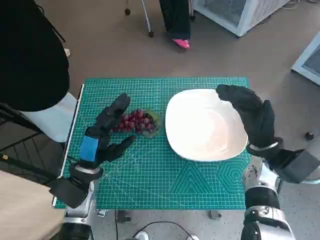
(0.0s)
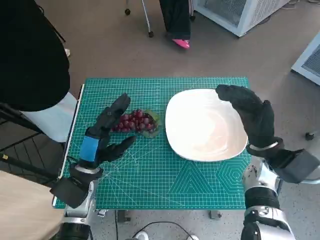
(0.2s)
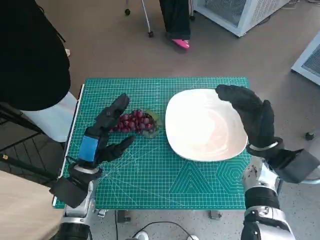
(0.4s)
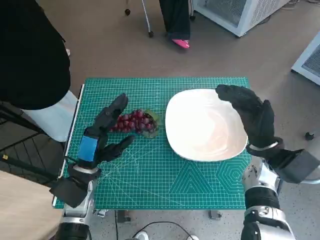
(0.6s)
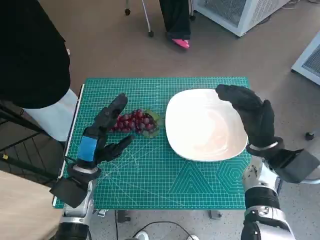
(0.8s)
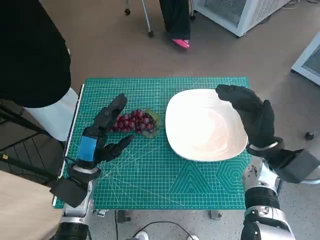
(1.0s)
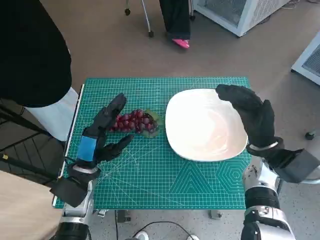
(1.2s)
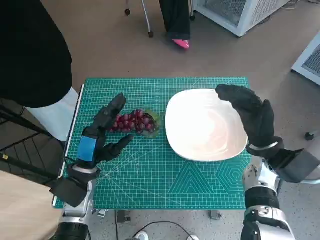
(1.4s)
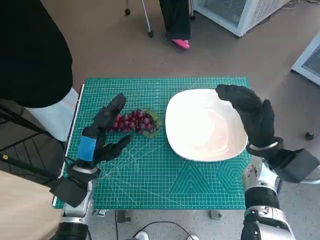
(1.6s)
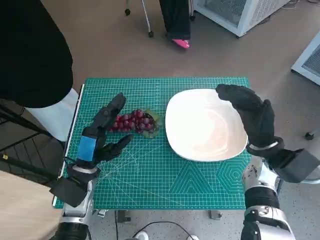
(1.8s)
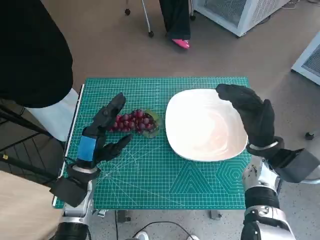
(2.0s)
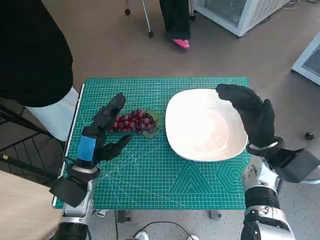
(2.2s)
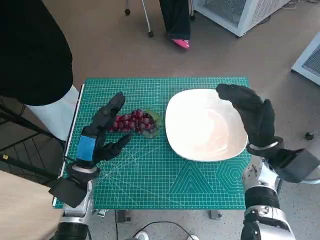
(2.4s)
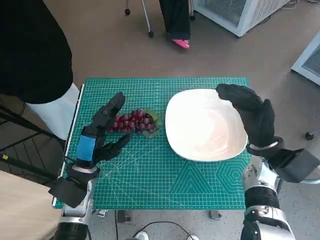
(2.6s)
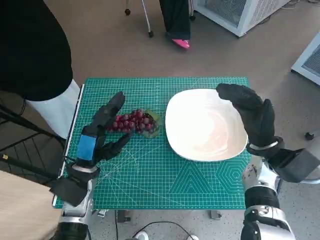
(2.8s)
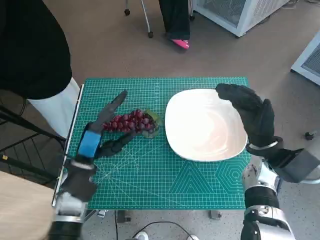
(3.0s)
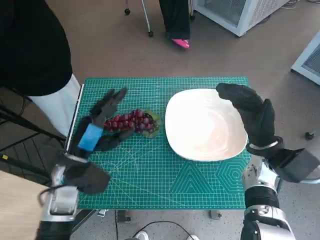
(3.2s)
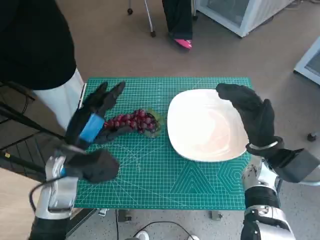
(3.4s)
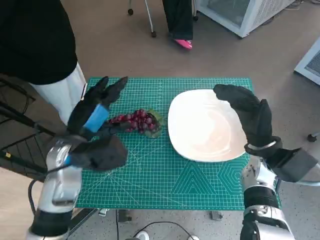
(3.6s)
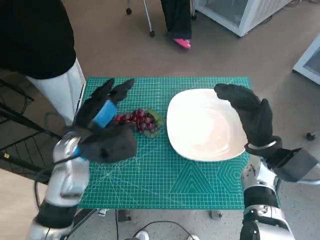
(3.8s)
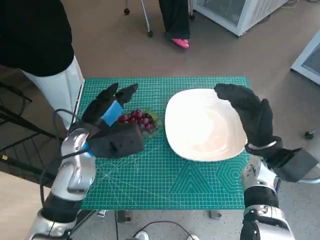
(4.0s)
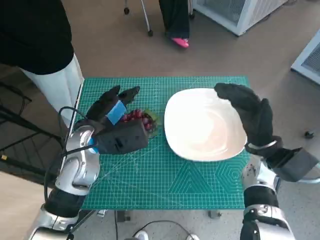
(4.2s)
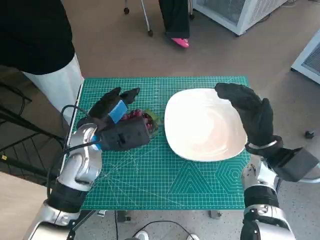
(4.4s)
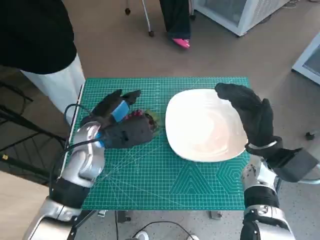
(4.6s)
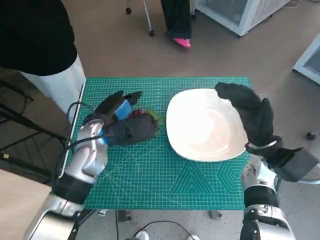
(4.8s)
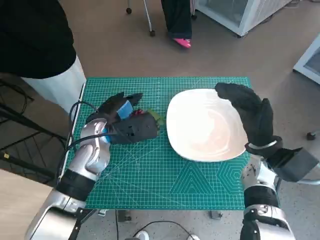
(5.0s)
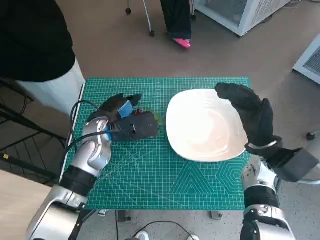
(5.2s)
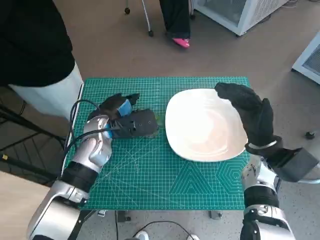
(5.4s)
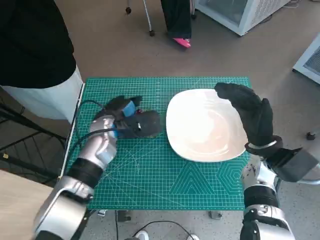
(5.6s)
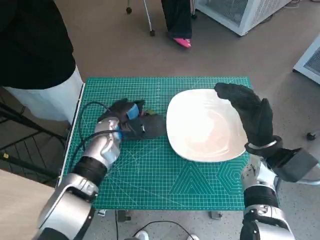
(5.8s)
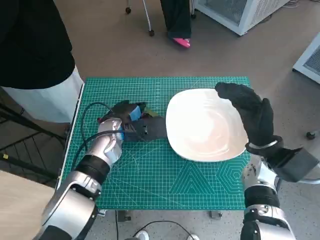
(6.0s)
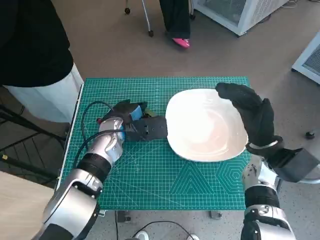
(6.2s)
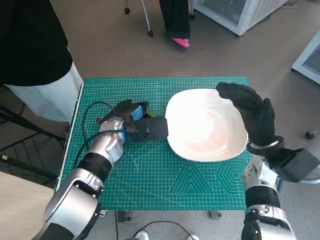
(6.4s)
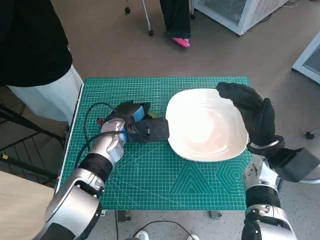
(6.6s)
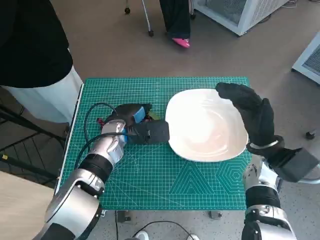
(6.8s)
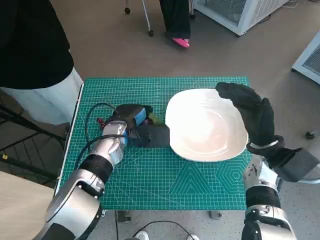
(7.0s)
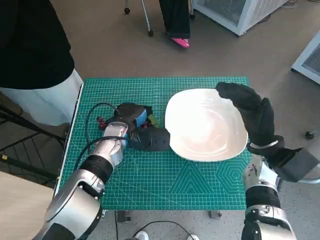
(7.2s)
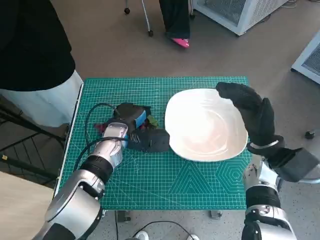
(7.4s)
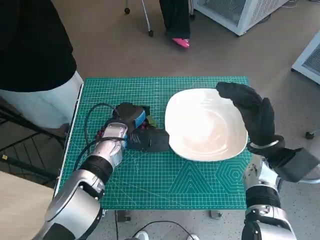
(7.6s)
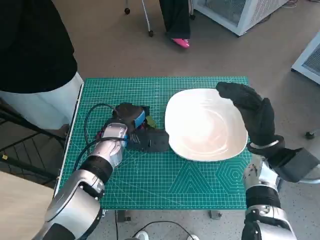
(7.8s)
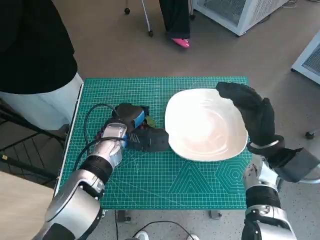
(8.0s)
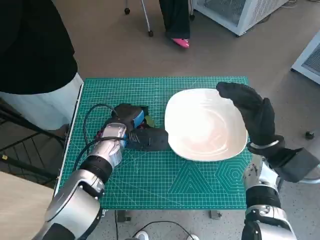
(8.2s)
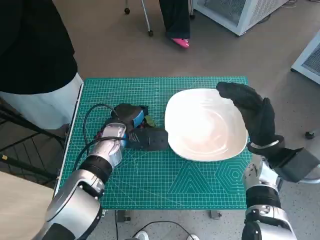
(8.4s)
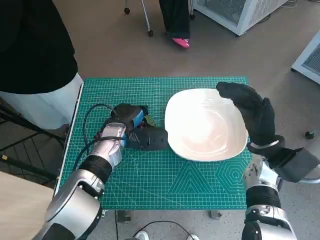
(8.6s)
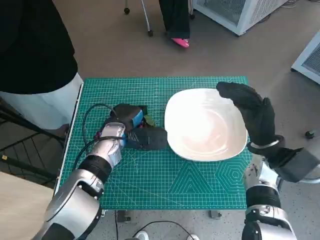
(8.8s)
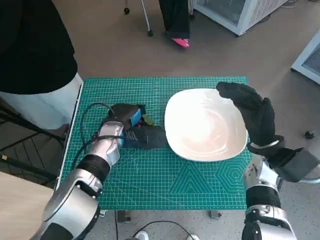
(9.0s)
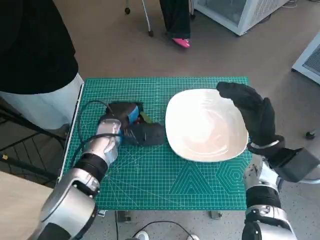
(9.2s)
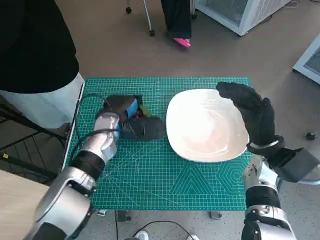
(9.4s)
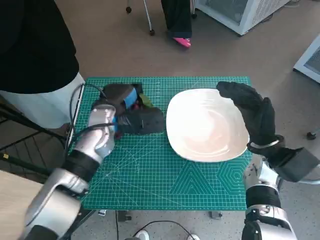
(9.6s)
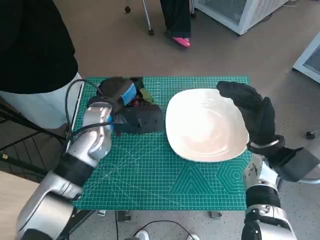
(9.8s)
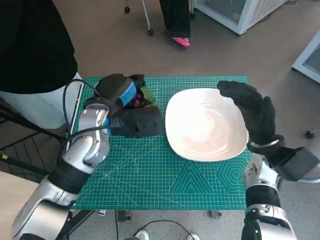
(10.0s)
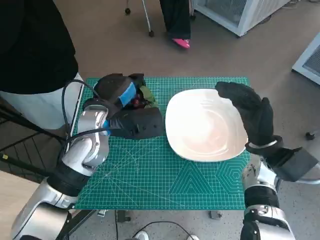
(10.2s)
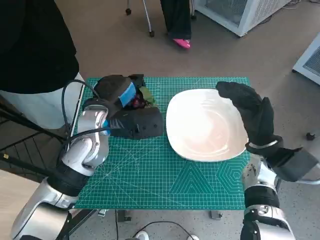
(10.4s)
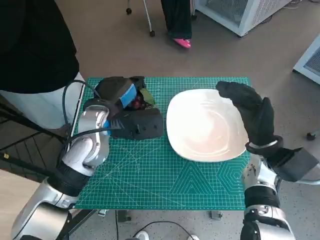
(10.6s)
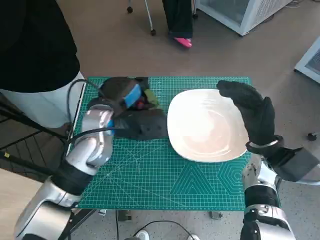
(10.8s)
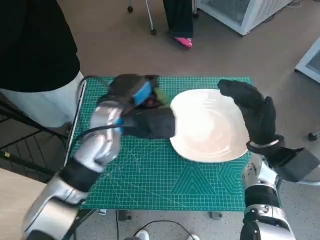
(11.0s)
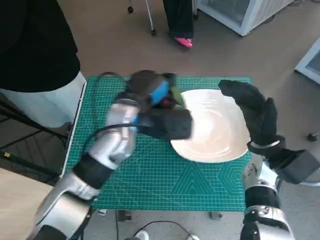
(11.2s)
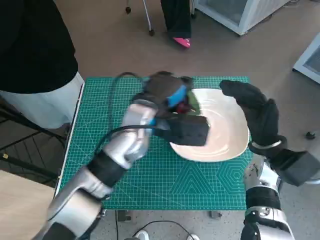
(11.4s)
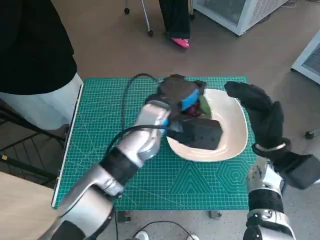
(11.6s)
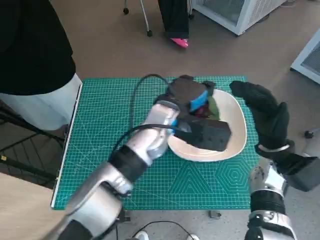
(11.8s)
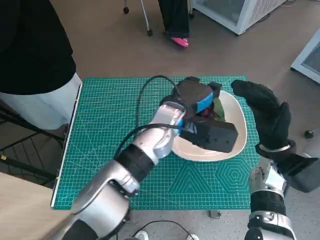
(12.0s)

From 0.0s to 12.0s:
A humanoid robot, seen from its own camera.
Task of the whole recording: Pick up the grapes and put them on the plate.
Step, from 0.0s to 8.8s: Grasp the grapes with left hand.
From 1.6s to 3.0s: There are only small adjustments of the hands.
From 3.0s to 4.4s: The left hand heads upward and forward, covering approximately 10 cm.
From 4.4s to 6.0s: The left hand changes place by roughly 5 cm.
From 6.0s to 7.6s: The hands make only small movements.
From 7.6s to 9.0s: The two hands keep their place.
From 9.0s to 10.4s: The left hand heads upward, covering some 10 cm.
From 10.4s to 12.0s: The left hand travels to the right by approximately 15 cm.

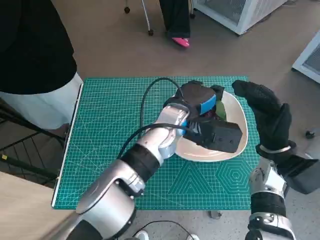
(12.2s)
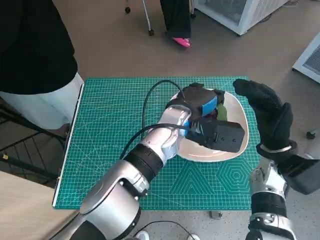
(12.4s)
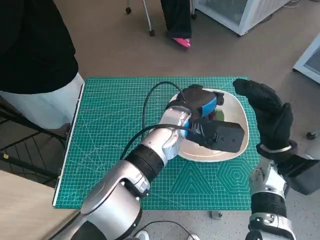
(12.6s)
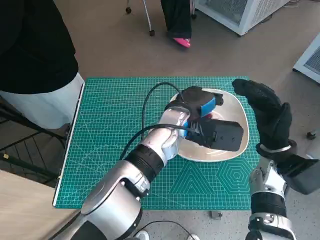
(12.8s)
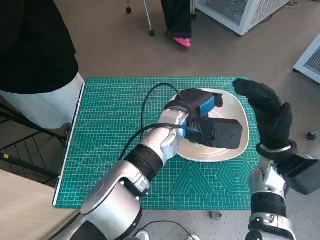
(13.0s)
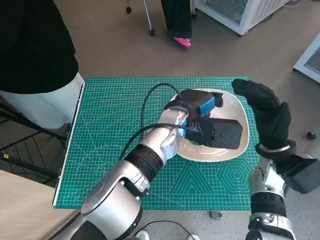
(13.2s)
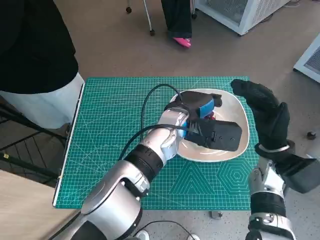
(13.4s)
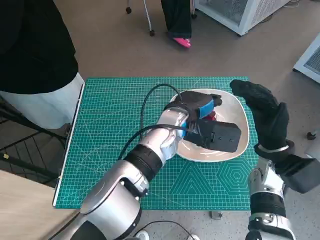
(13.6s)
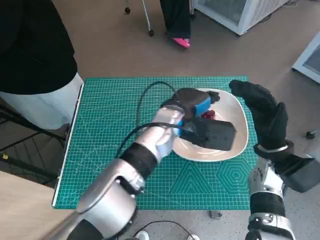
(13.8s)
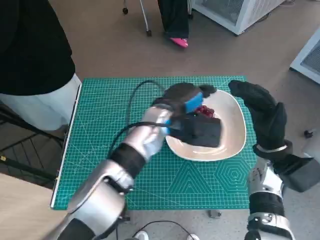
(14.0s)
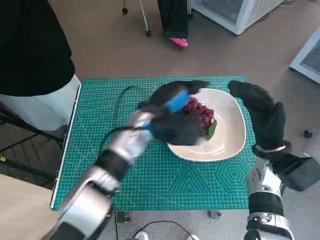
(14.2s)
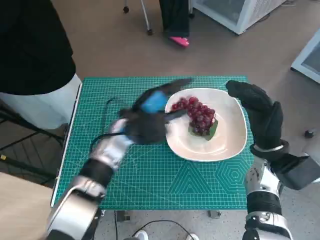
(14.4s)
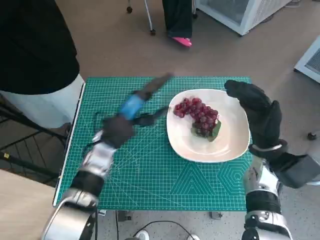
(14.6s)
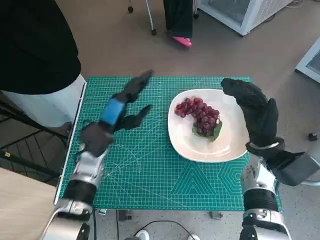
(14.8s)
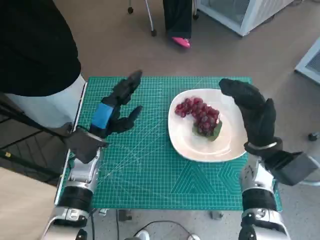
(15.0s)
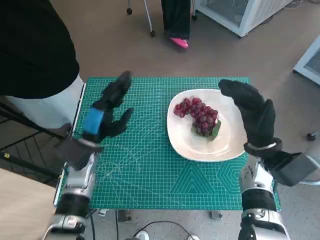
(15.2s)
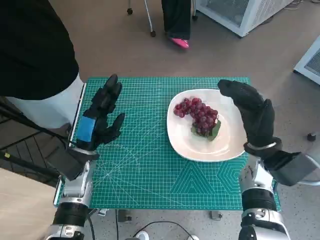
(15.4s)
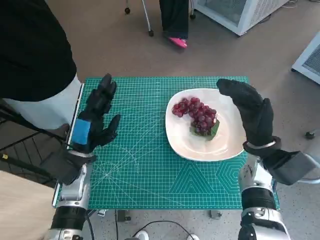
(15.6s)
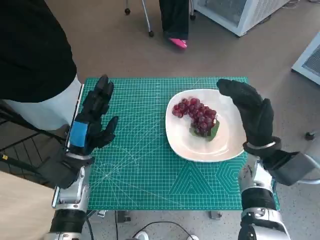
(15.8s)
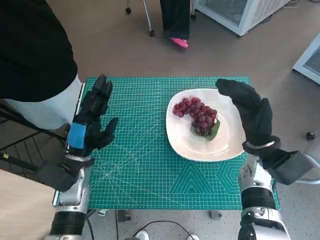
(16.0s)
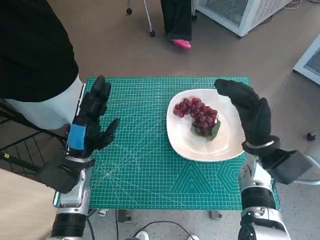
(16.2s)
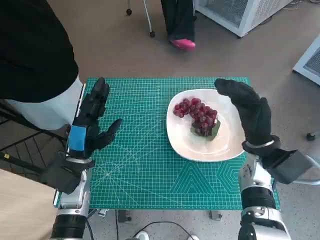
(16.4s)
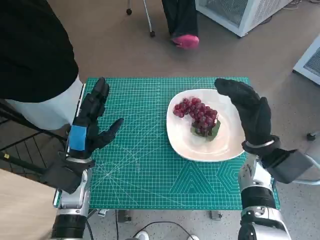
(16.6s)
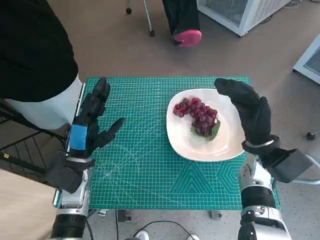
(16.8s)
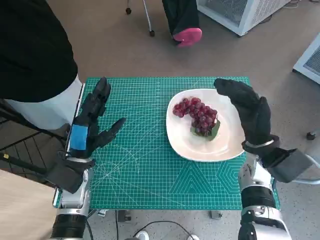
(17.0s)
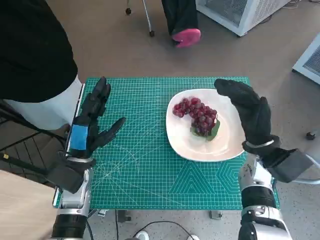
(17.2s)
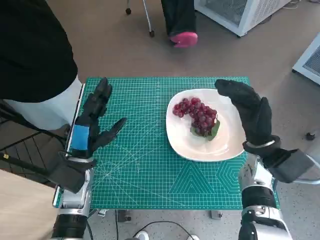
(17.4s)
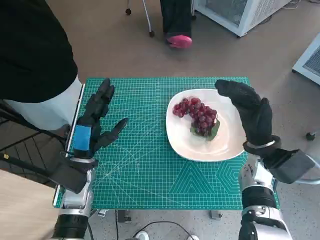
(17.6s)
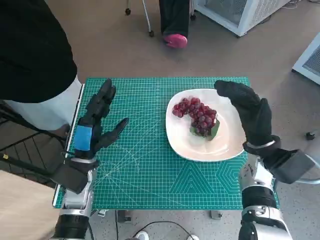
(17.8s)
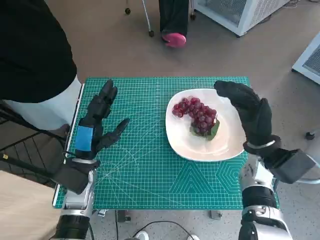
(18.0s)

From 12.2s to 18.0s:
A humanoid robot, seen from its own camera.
Task of the whole recording: Pick up the grapes and put them on the plate.
From 12.2s to 13.6s: The hands move only a little.
From 13.6s to 15.0s: The left hand travels to the left by approximately 20 cm.
From 15.0s to 16.6s: The left hand moves roughly 5 cm.
From 16.6s to 18.0s: Both hands stay about where they are.

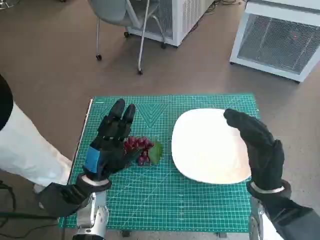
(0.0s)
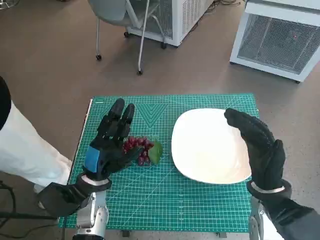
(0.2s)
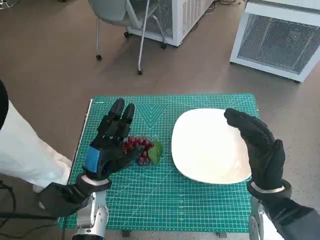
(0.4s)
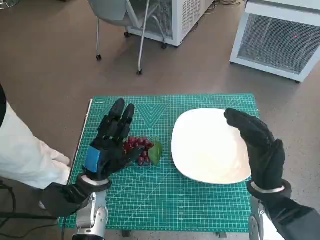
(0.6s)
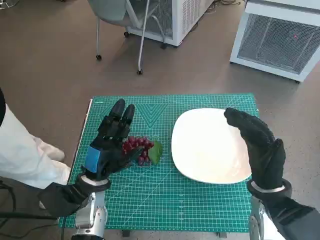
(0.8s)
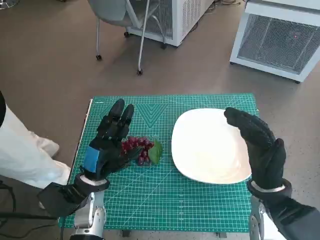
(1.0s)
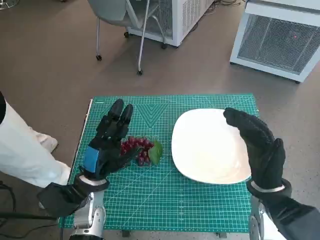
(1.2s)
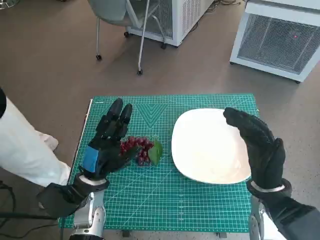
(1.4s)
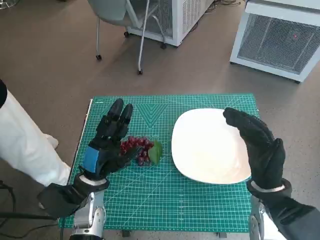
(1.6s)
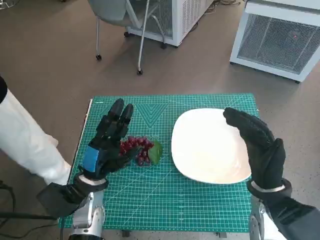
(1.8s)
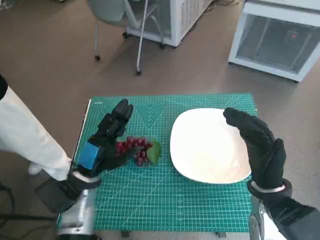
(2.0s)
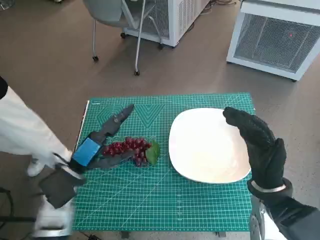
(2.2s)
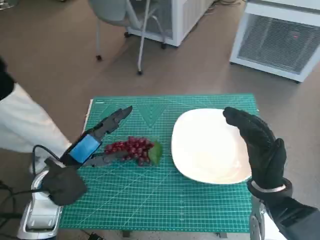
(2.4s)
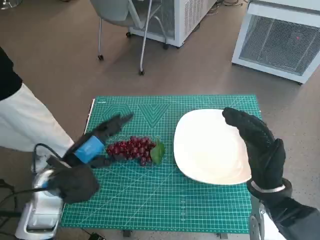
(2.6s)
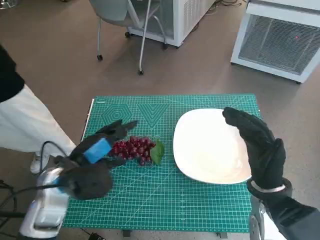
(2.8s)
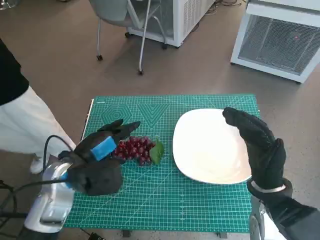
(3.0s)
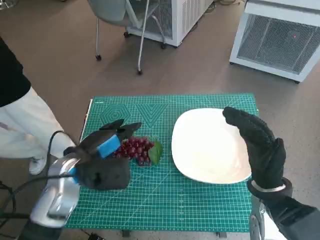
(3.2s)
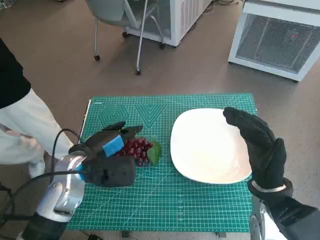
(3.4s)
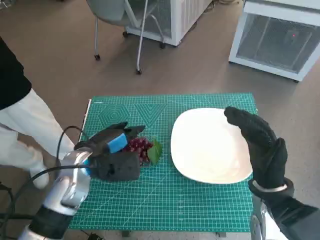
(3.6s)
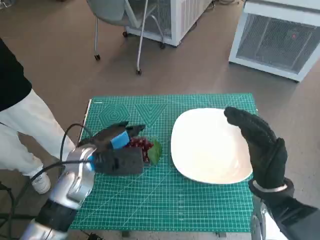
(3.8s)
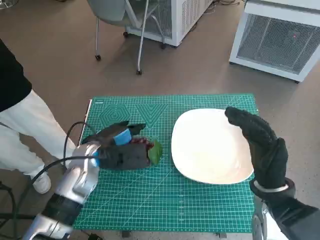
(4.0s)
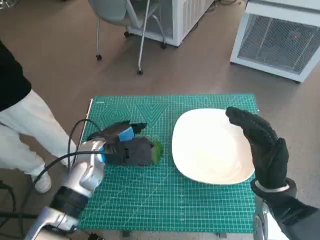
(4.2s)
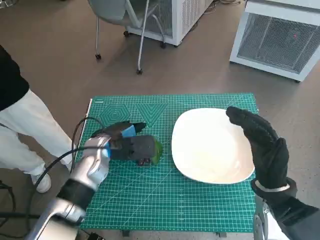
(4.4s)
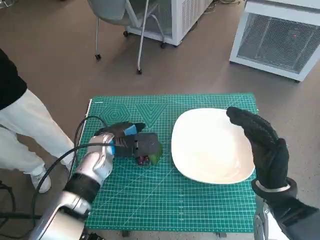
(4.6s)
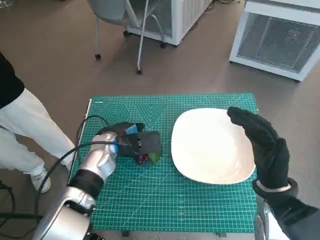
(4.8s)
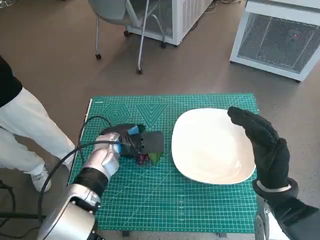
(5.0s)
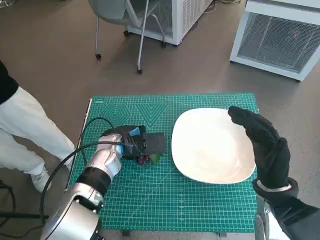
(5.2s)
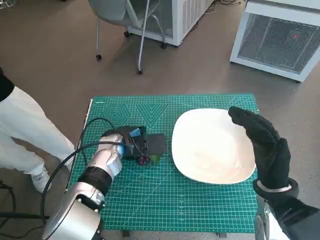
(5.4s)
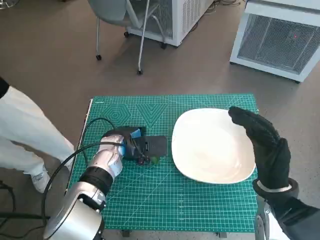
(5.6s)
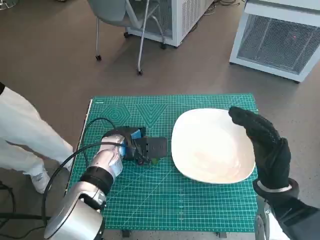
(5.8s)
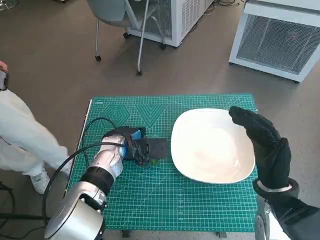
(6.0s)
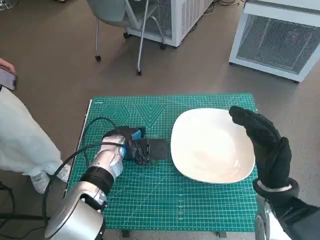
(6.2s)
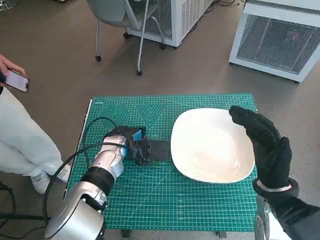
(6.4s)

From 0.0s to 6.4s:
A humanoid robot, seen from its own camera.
Task of the whole recording: Pick up the grapes and put them on the plate.
From 1.6s to 3.2s: The left hand travels upward by approximately 10 cm.
From 3.2s to 4.8s: The left hand moves forward, about 10 cm.
From 4.8s to 6.4s: The hands move only a little.
